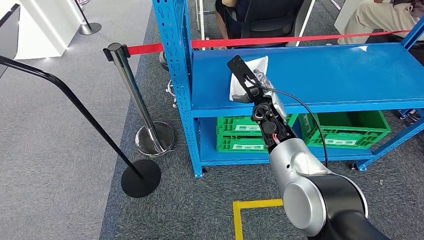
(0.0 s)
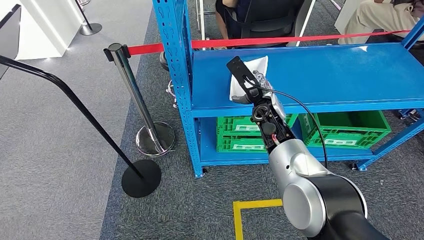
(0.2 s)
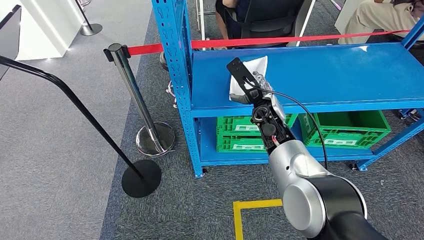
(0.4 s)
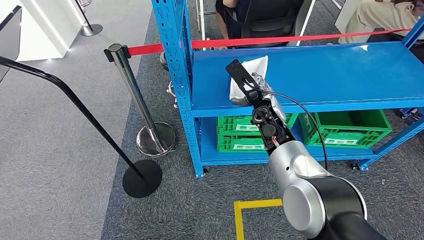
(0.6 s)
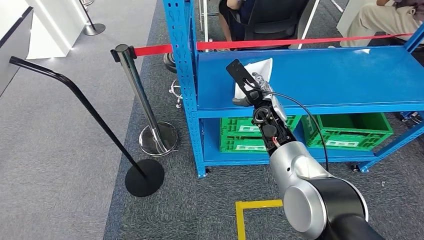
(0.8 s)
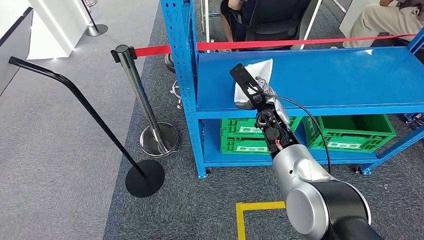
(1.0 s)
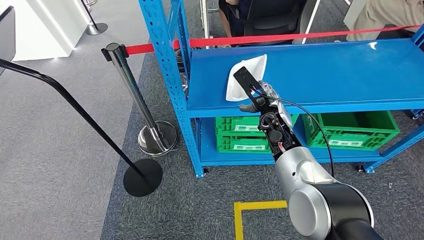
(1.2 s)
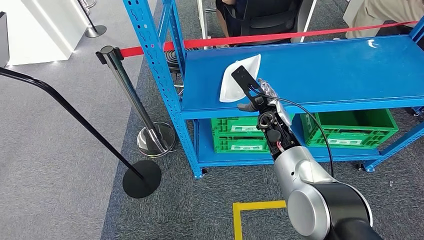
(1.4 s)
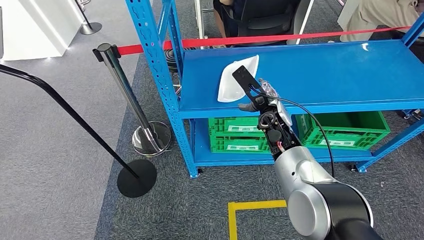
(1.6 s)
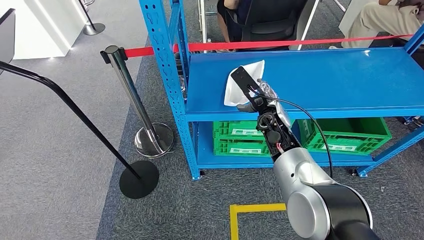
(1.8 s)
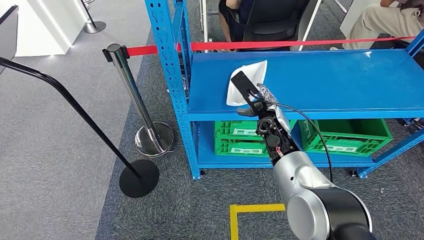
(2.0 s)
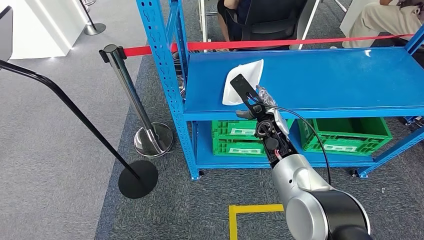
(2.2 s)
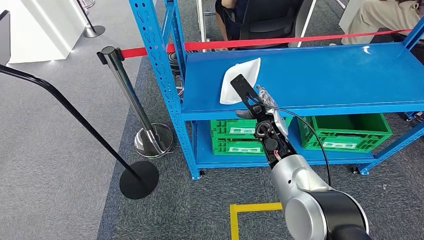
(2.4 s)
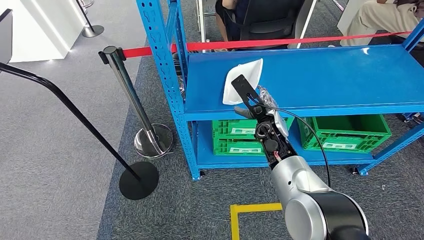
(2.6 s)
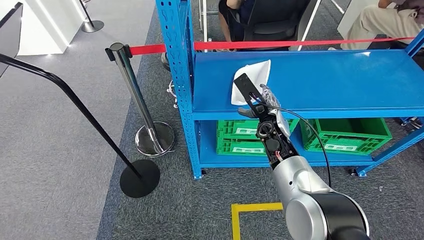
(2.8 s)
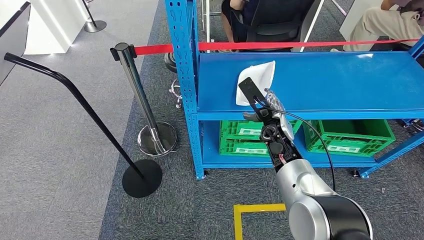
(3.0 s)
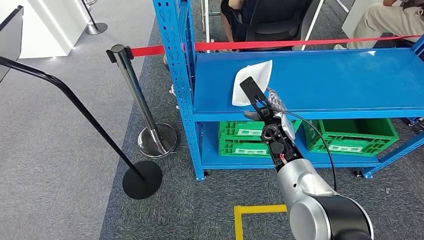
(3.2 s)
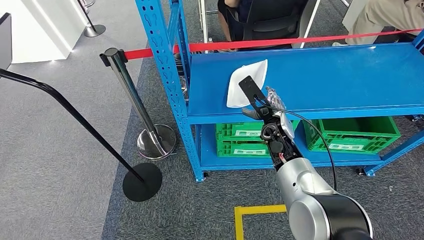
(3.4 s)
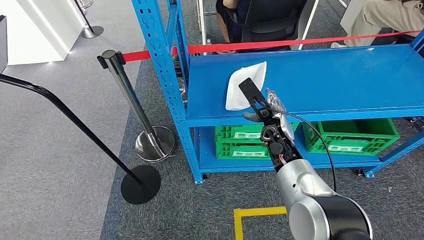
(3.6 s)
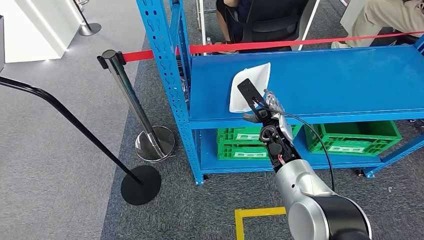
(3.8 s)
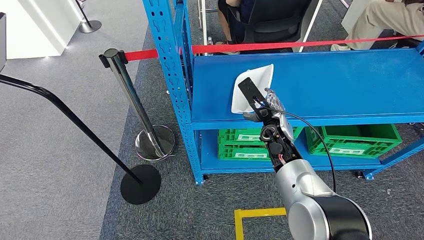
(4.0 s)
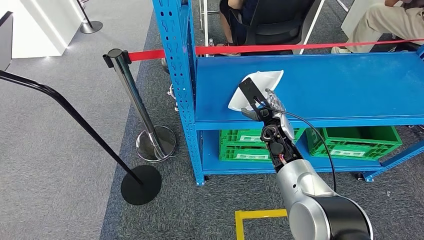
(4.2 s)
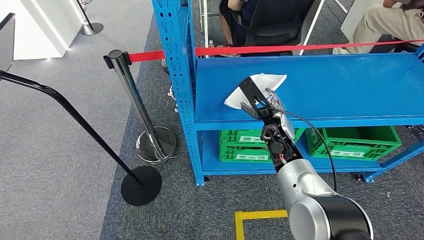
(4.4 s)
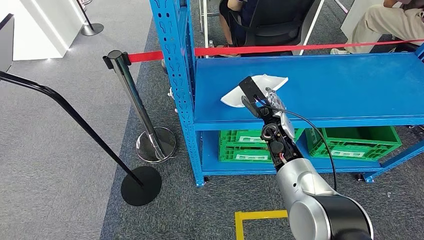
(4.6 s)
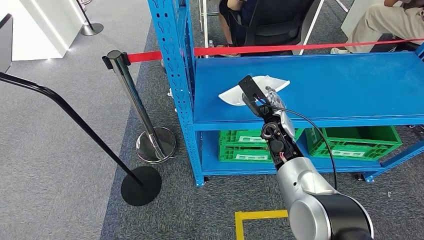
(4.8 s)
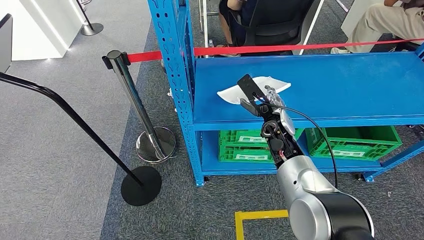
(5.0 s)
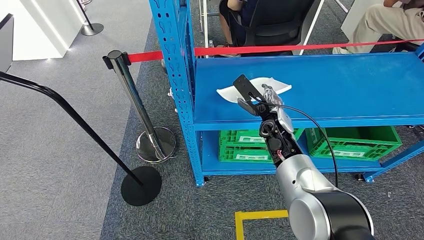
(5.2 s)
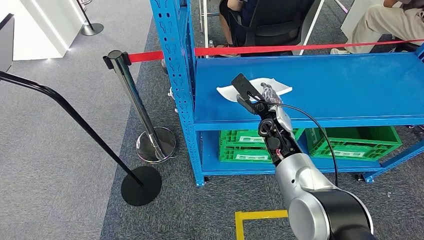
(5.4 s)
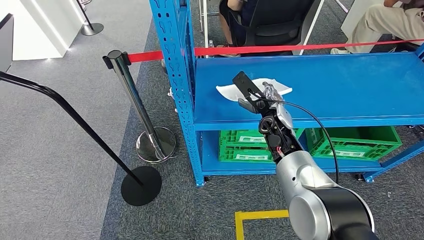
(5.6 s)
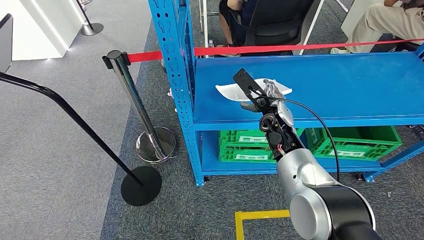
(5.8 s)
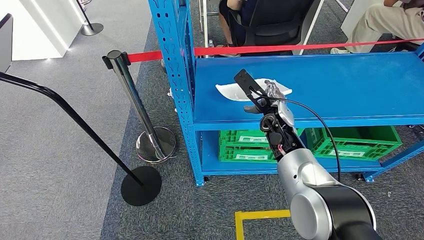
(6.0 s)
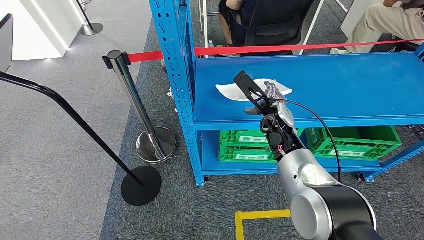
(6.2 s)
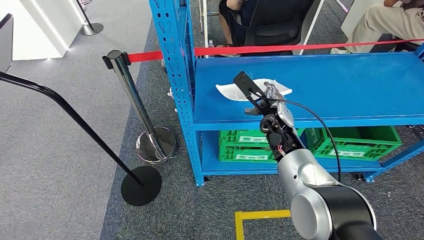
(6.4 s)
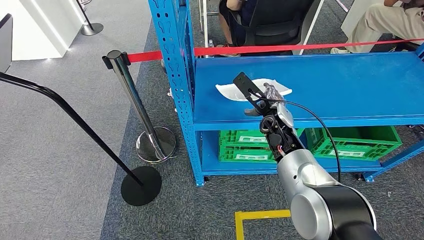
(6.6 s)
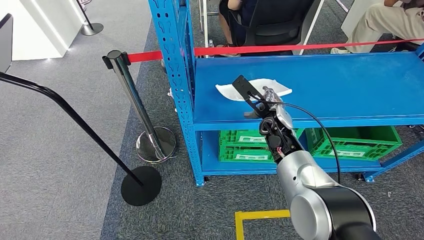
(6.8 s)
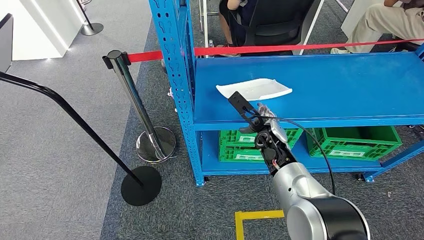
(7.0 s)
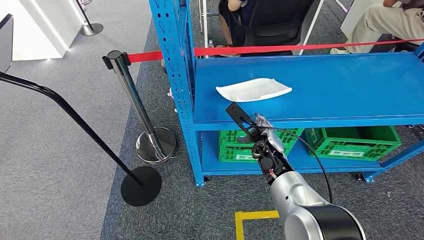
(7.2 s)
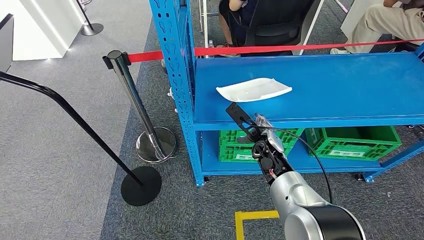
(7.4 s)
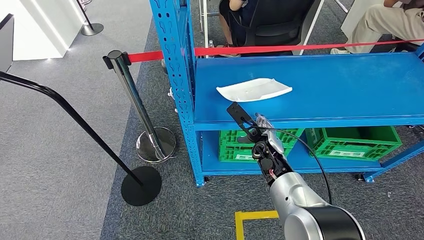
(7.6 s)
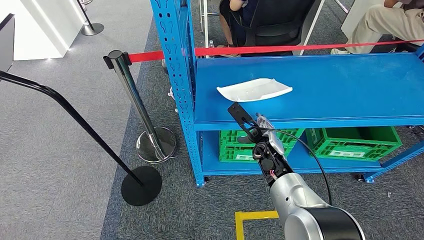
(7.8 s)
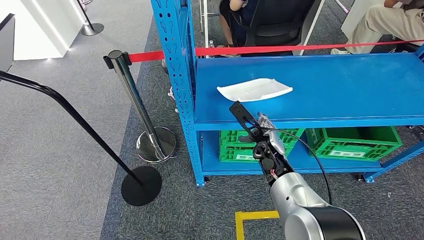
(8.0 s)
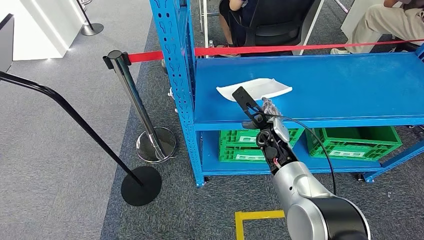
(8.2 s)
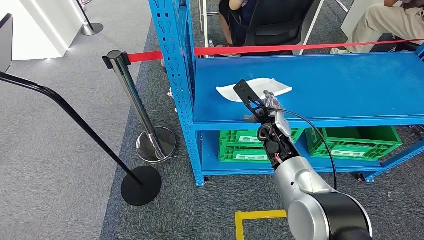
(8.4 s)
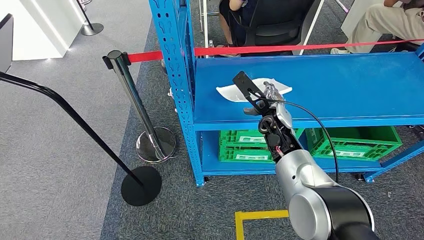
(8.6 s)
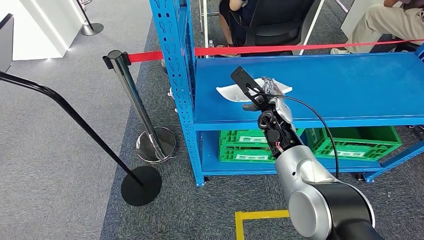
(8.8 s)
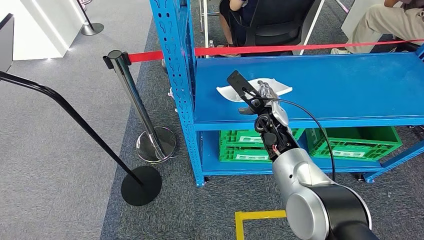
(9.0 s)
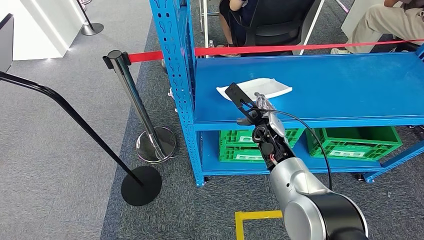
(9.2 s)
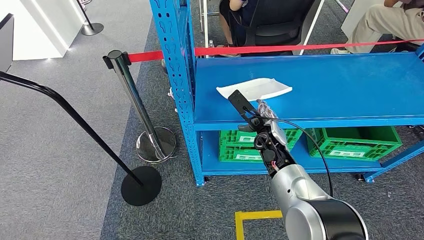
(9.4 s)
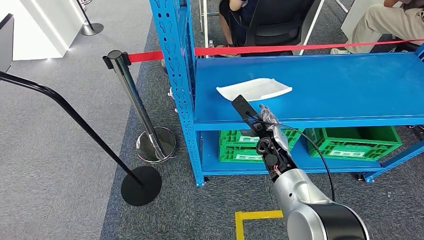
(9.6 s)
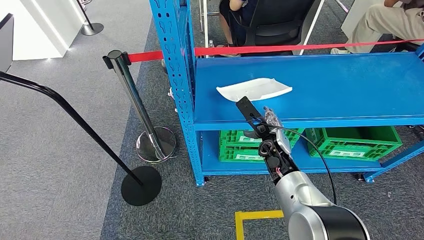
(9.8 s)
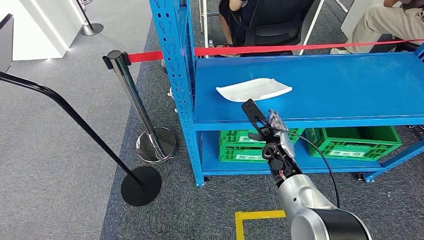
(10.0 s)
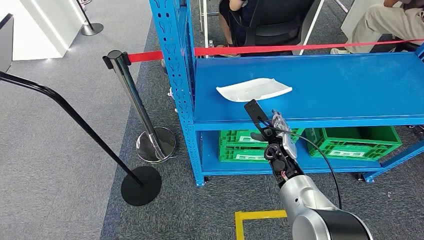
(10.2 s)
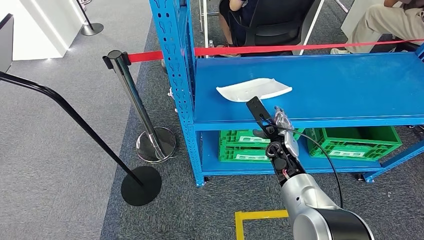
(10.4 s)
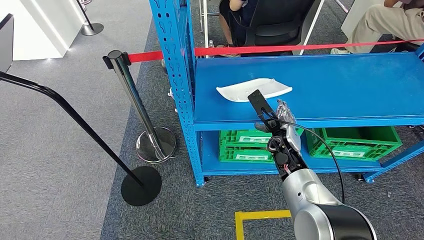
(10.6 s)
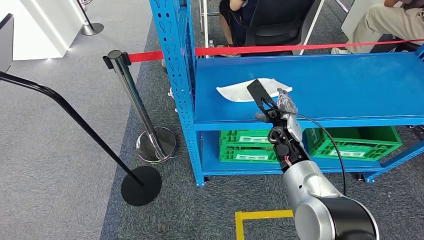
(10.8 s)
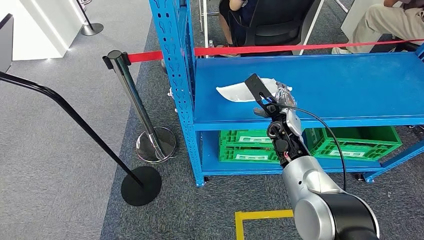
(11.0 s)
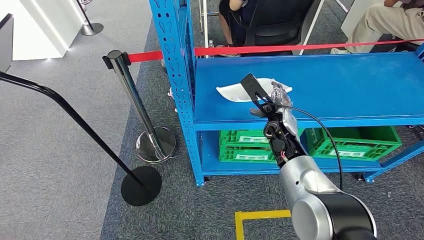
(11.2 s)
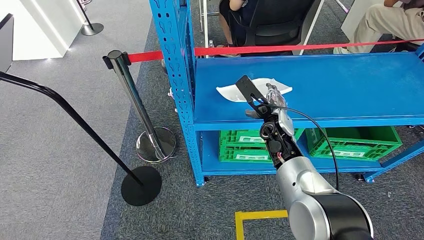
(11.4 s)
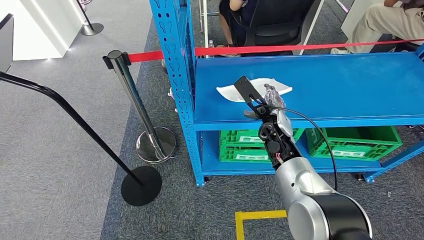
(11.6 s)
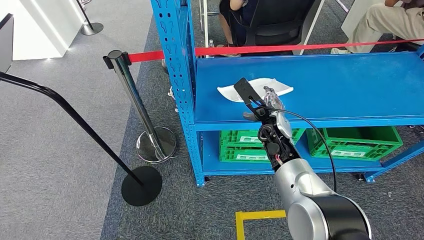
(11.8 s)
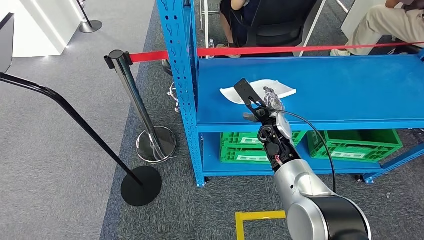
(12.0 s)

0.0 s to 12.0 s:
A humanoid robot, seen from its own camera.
4.4 to 6.0 s: There are only small adjustments of the hands.
6.0 to 7.6 s: The right hand shifts some 10 cm downward.
7.6 to 9.0 s: The right hand heads upward, covering some 10 cm.
9.0 to 10.4 s: The right hand goes some 10 cm downward.
10.4 to 12.0 s: The right hand shifts roughly 5 cm upward.

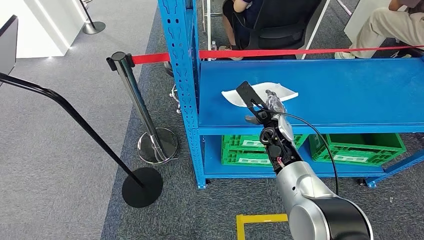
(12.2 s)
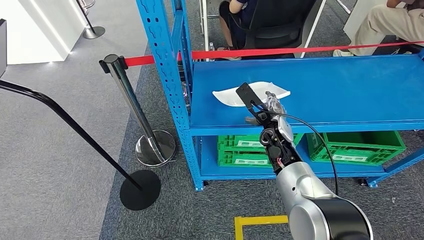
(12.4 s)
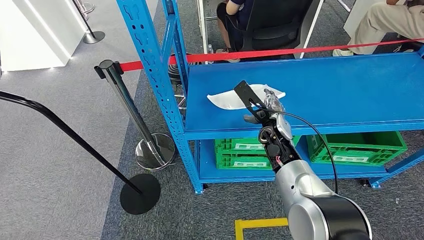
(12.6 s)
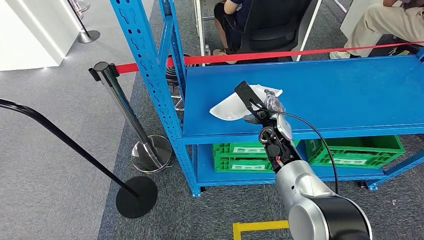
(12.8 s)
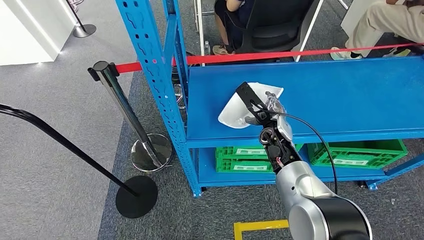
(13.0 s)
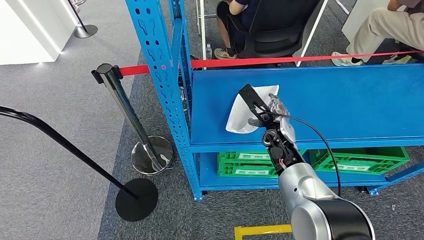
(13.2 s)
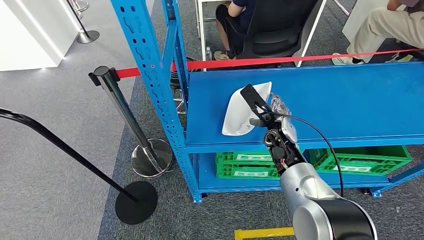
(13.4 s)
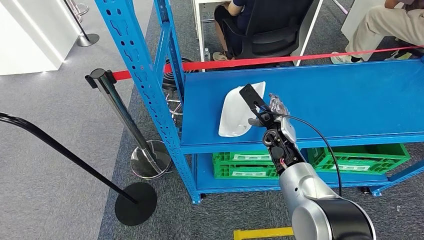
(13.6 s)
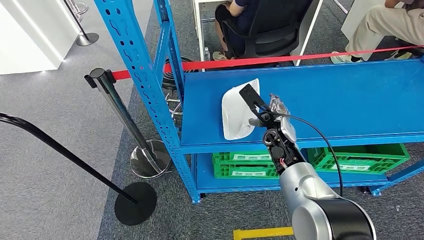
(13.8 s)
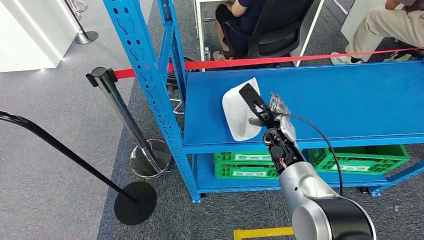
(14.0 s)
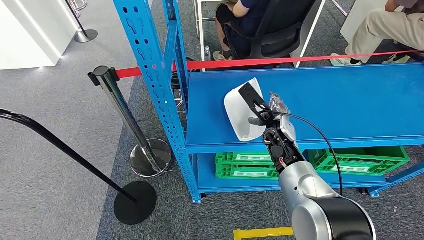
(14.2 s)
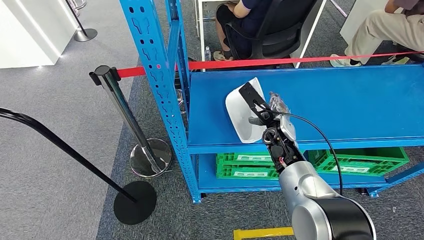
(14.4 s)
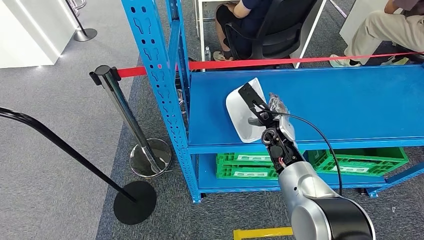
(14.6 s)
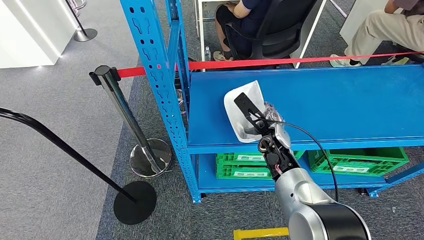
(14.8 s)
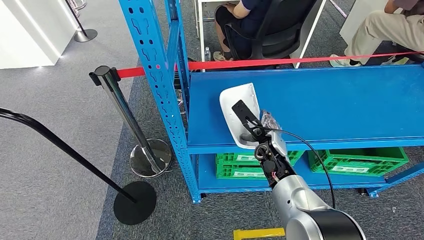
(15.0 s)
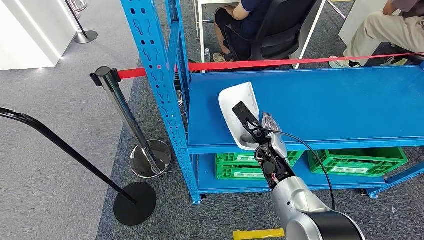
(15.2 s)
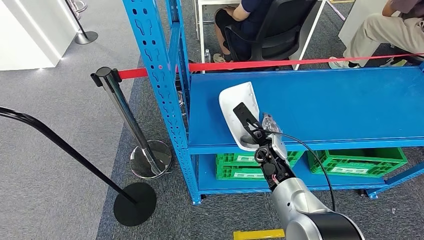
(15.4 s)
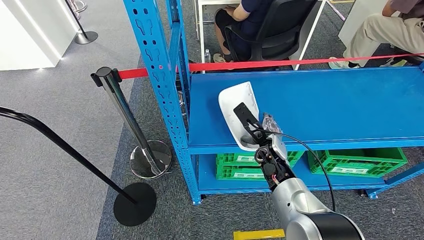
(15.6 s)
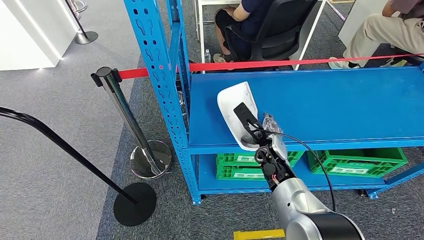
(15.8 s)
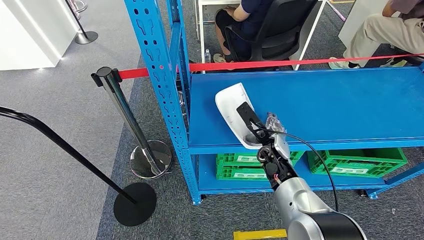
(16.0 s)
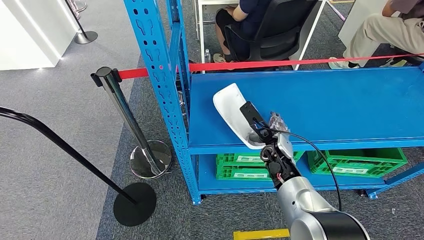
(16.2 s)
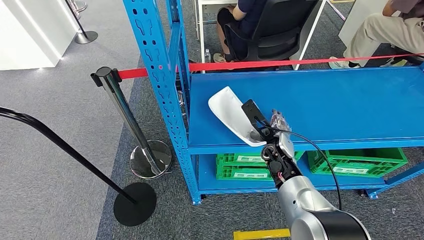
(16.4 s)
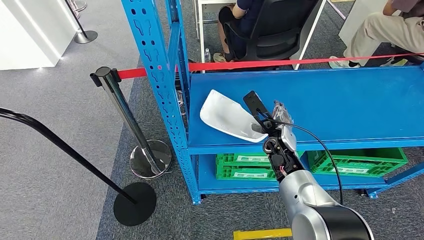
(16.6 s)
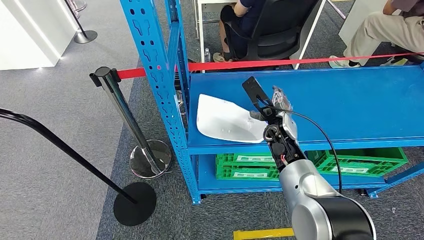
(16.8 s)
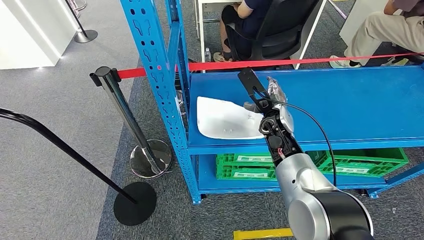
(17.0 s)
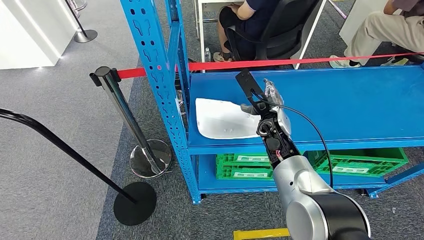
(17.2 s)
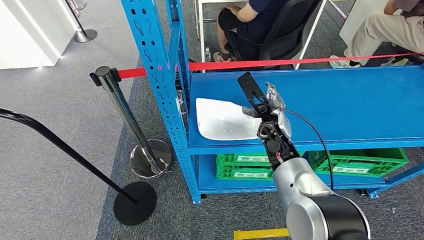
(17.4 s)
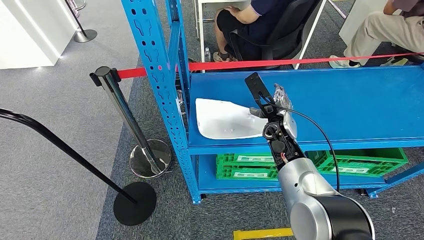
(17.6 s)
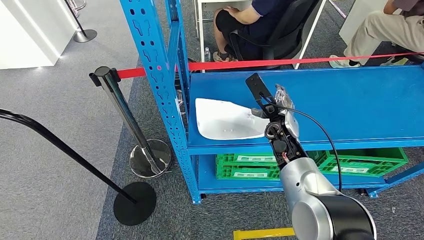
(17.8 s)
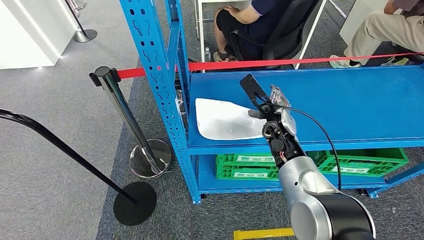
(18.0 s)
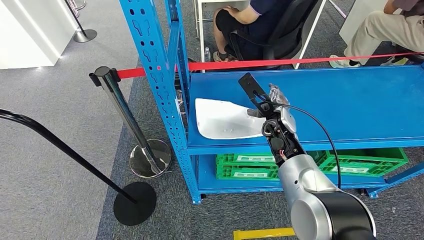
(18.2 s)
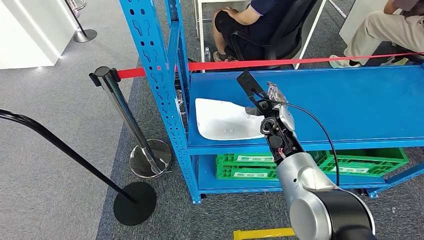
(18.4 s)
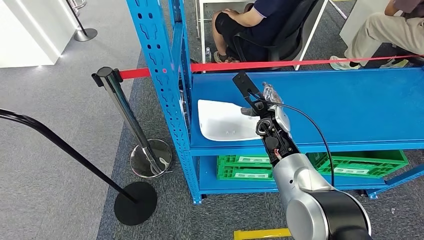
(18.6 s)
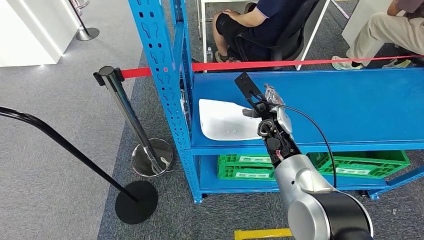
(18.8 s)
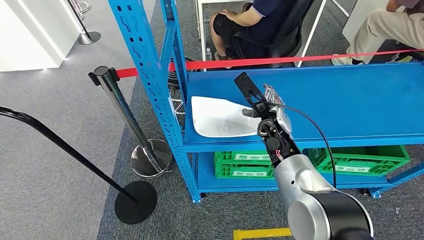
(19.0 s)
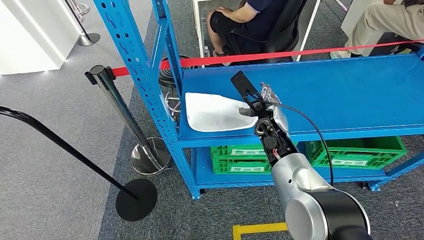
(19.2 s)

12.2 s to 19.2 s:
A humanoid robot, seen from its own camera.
15.0 to 16.4 s: There are only small adjustments of the hands.
16.4 to 17.8 s: The right hand goes approximately 5 cm upward. The left hand goes about 5 cm to the left.
